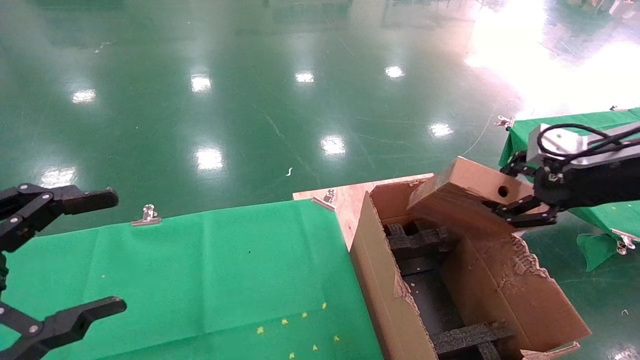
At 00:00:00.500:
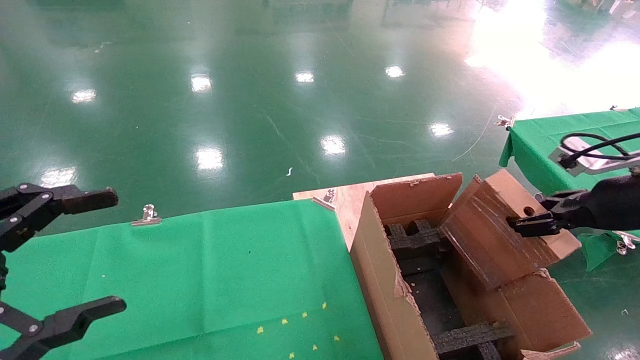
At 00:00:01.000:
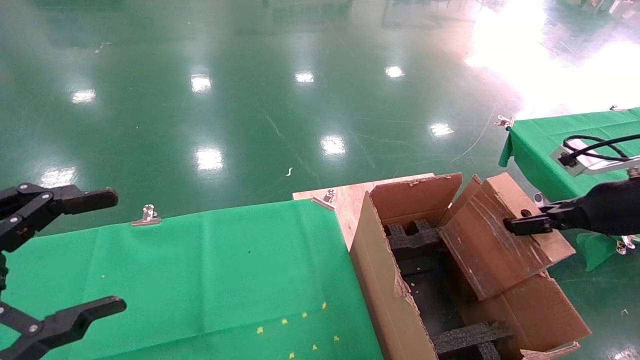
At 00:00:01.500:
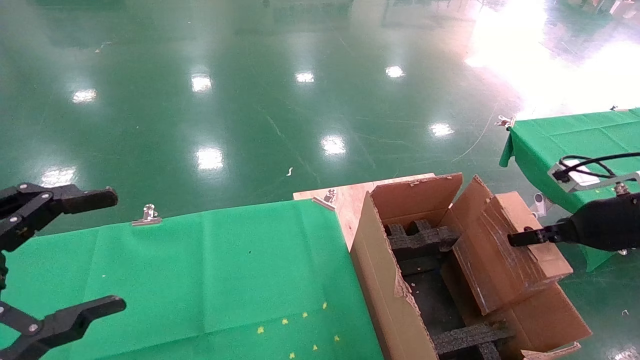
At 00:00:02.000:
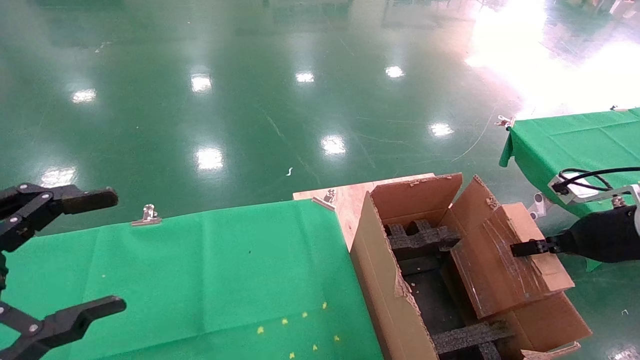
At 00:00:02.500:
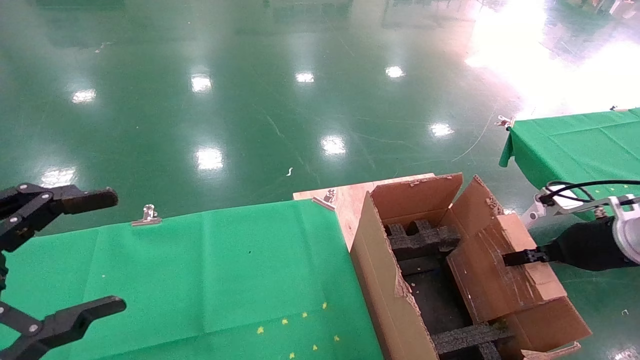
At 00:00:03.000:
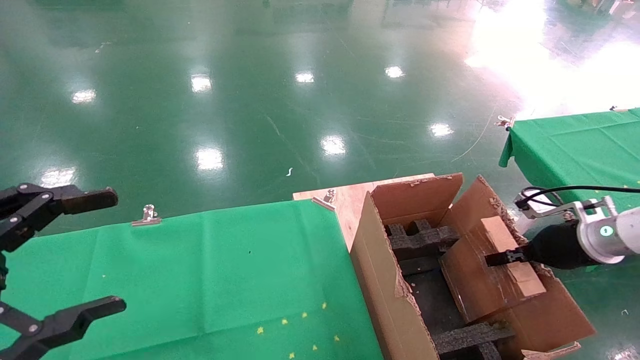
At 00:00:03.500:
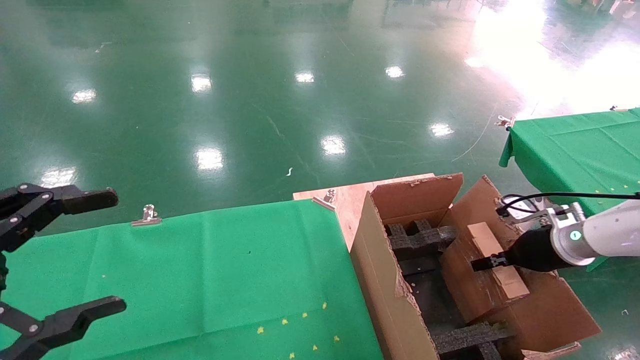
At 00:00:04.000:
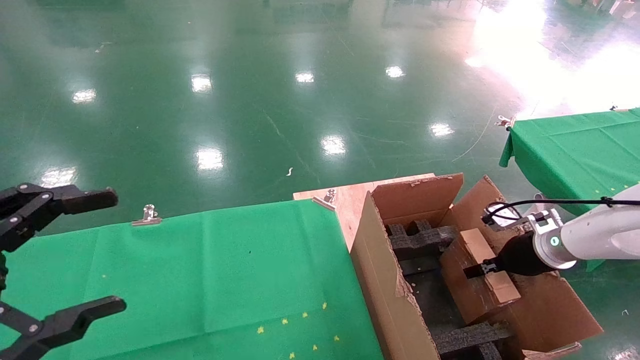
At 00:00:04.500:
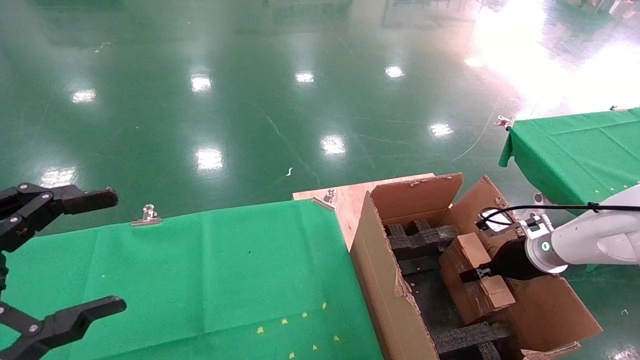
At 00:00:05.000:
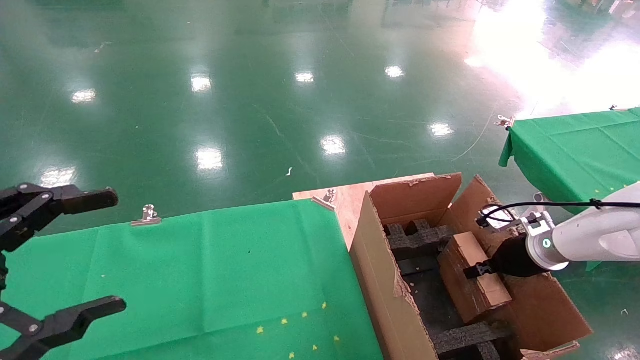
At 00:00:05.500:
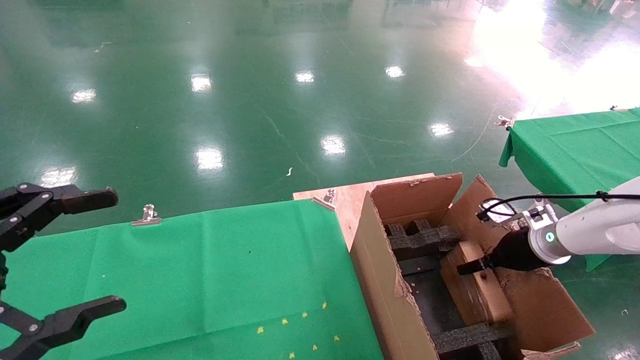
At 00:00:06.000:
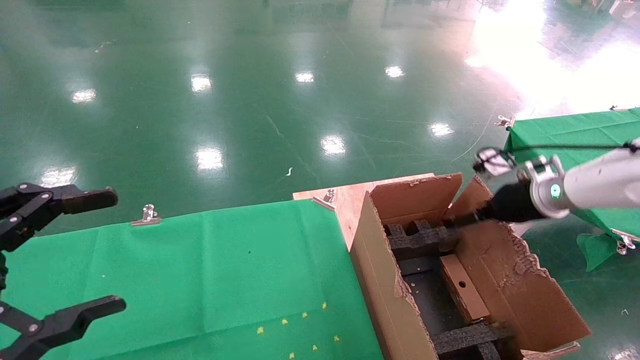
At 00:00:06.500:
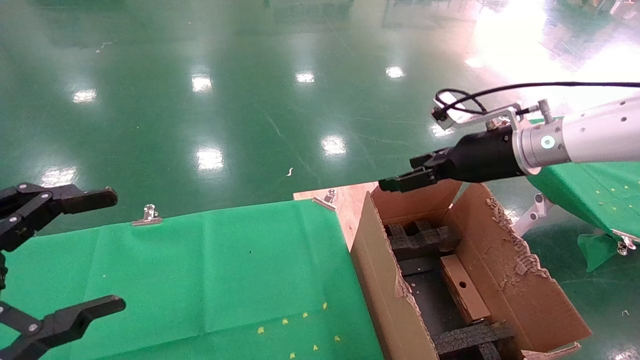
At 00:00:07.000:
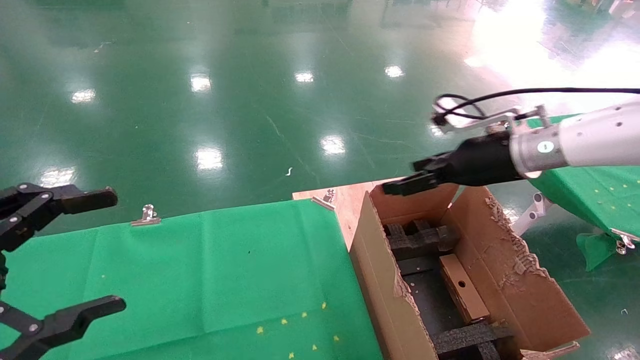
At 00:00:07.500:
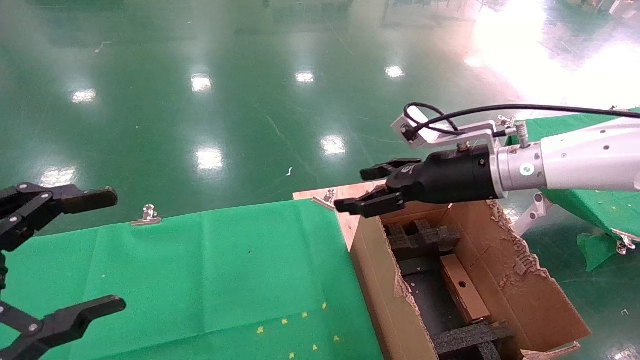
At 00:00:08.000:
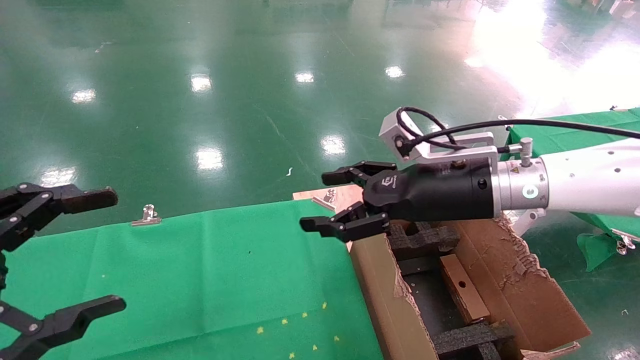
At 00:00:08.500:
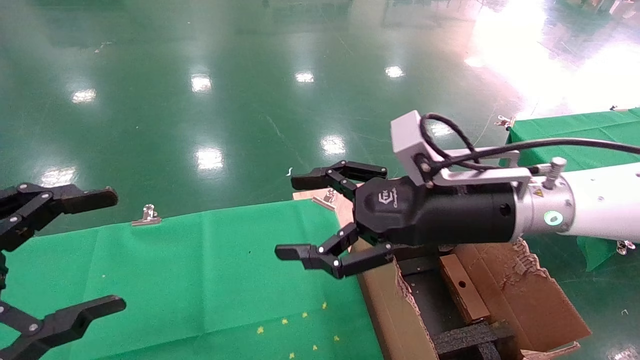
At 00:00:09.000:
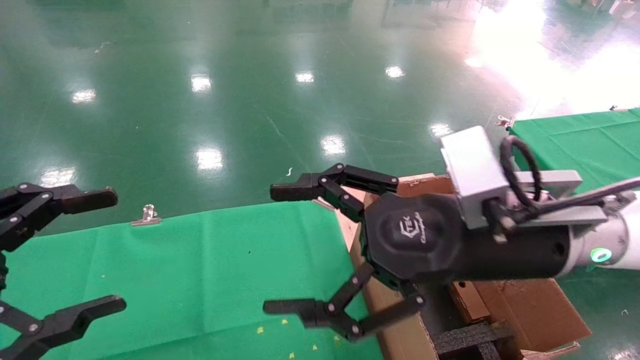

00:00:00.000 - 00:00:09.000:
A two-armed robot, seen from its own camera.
Task of the whole recording: using a robotic arm to pick up a cardboard box and palace it the carton.
Step, 00:00:00.000 - 00:00:05.500: Place the mouse and the power cord paper box into the container.
00:00:00.000 - 00:00:02.000: The right gripper heads downward, covering roughly 10 cm.
00:00:02.000 - 00:00:04.500: The right gripper moves forward and downward, some 15 cm.
00:00:04.500 - 00:00:07.000: The right gripper shifts some 25 cm upward and to the left, and opens up.
00:00:07.000 - 00:00:09.000: The right gripper is displaced backward and to the left by some 20 cm.

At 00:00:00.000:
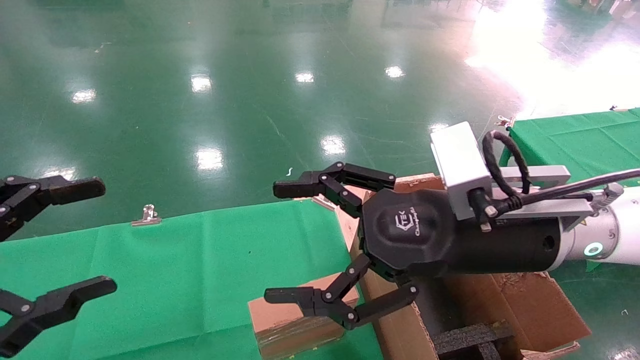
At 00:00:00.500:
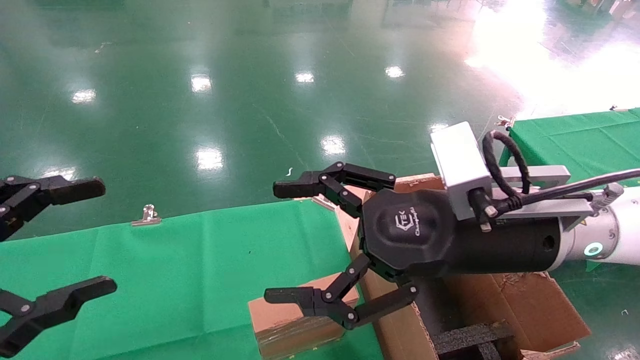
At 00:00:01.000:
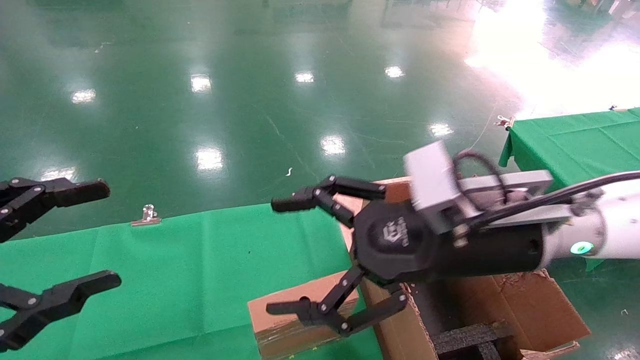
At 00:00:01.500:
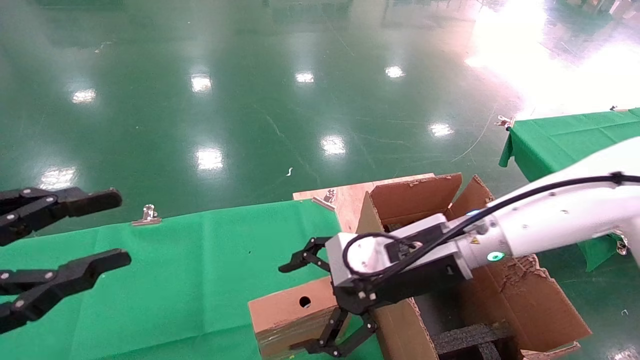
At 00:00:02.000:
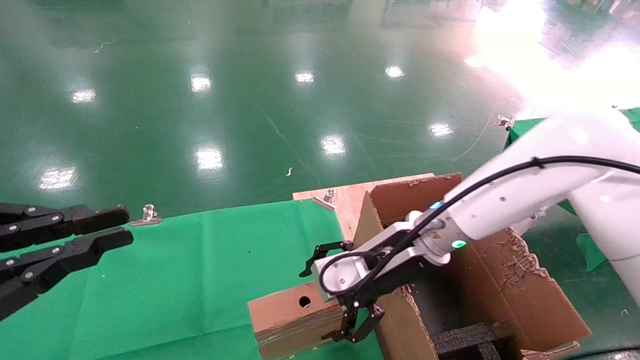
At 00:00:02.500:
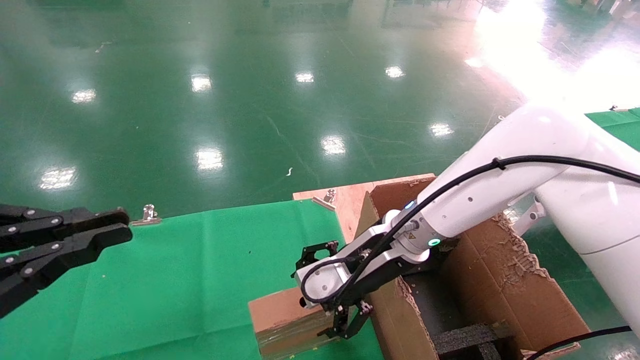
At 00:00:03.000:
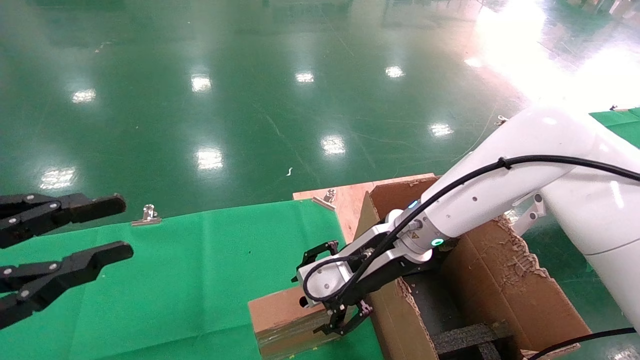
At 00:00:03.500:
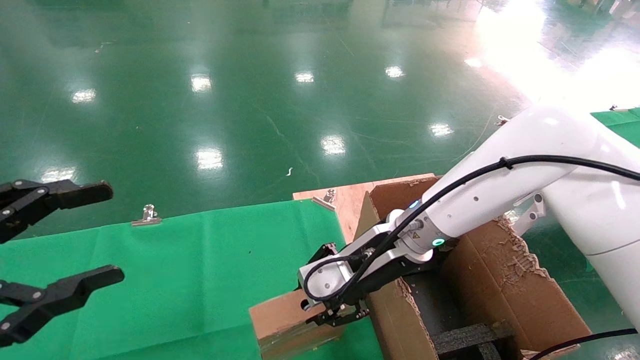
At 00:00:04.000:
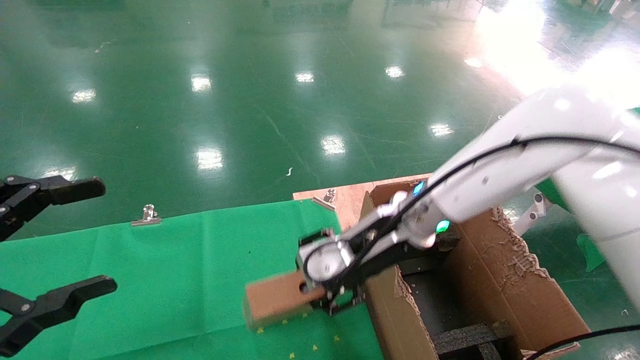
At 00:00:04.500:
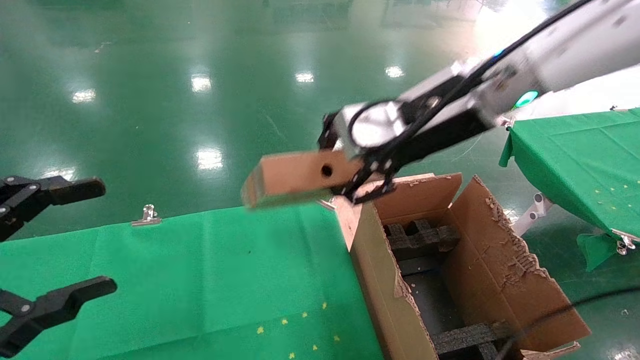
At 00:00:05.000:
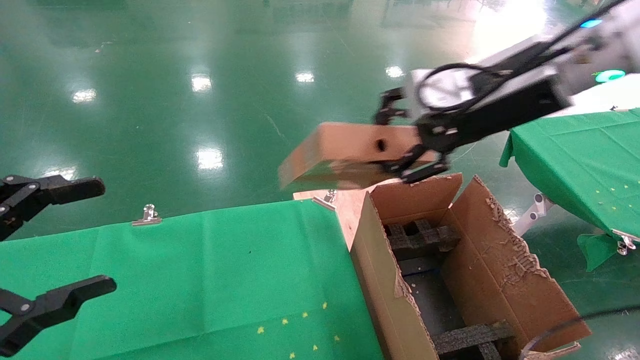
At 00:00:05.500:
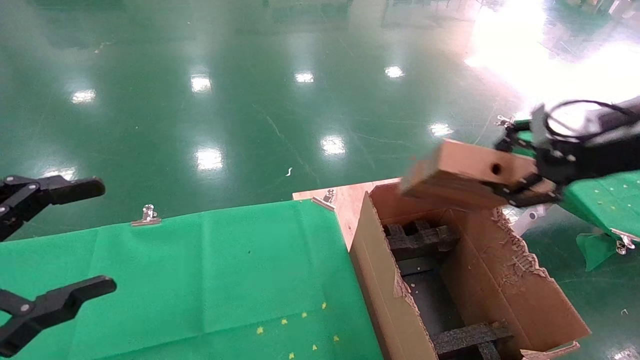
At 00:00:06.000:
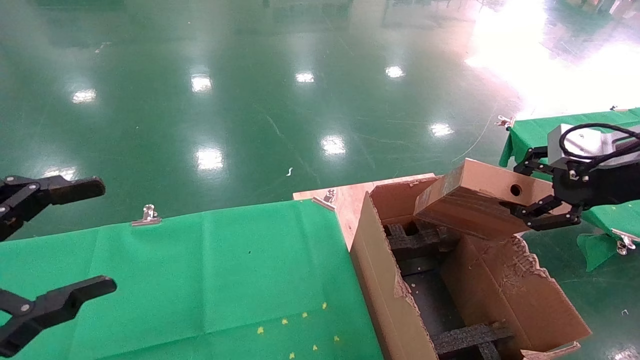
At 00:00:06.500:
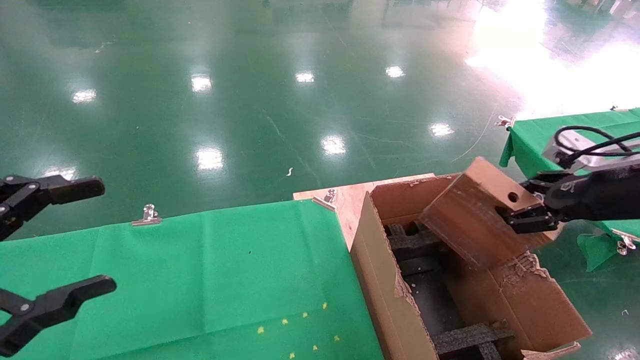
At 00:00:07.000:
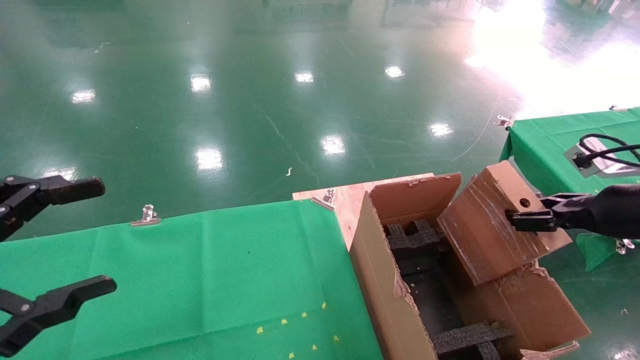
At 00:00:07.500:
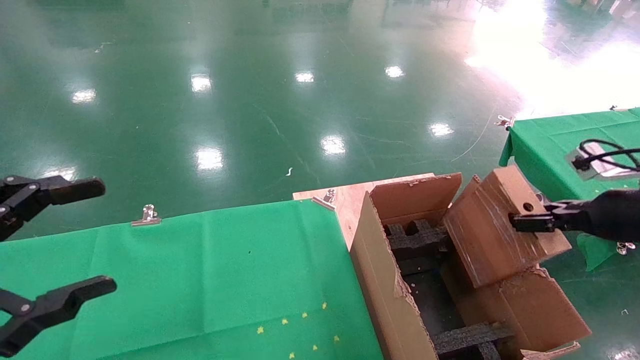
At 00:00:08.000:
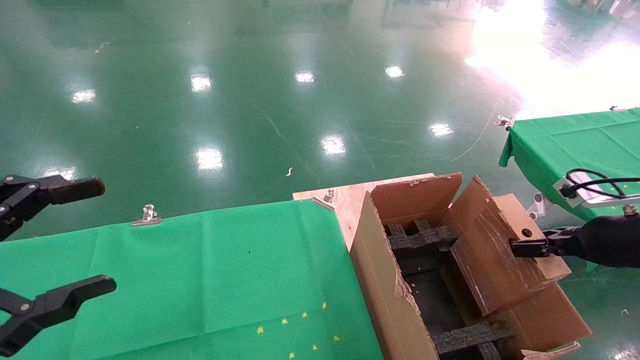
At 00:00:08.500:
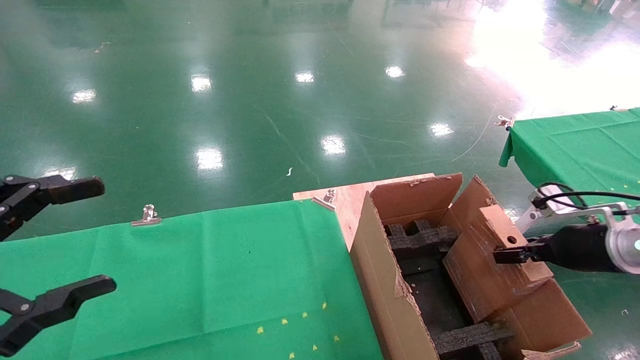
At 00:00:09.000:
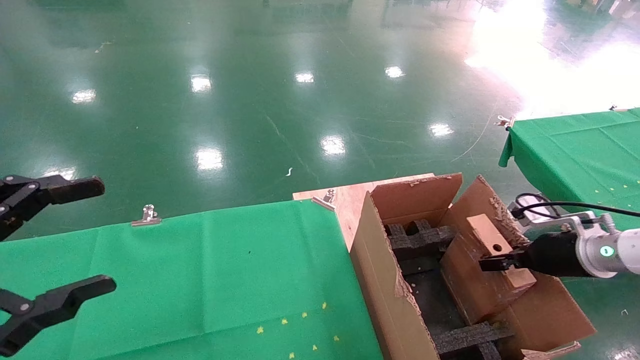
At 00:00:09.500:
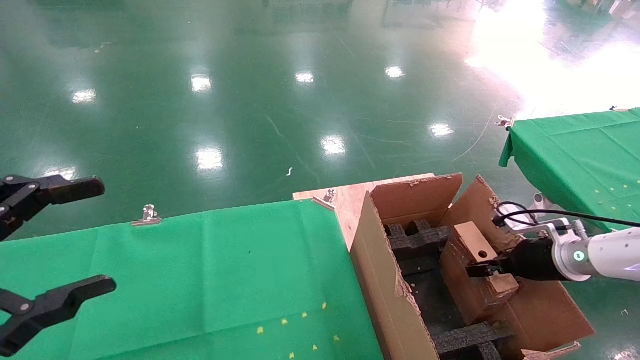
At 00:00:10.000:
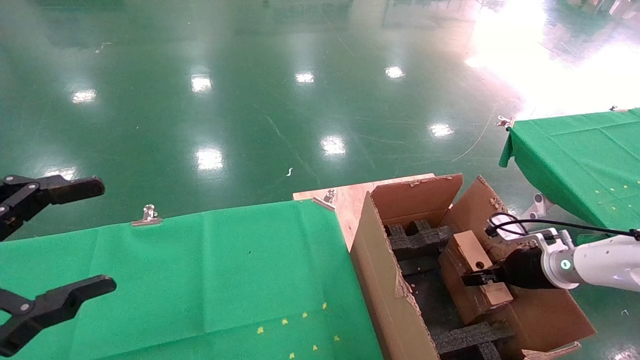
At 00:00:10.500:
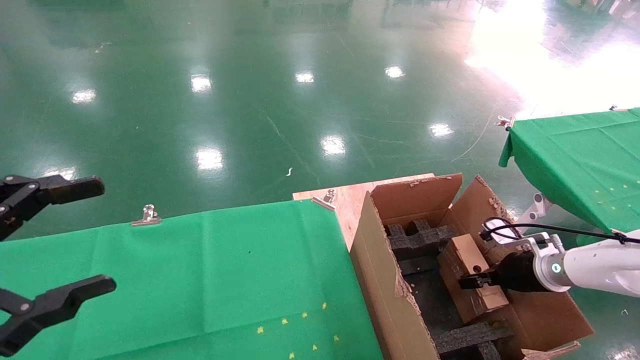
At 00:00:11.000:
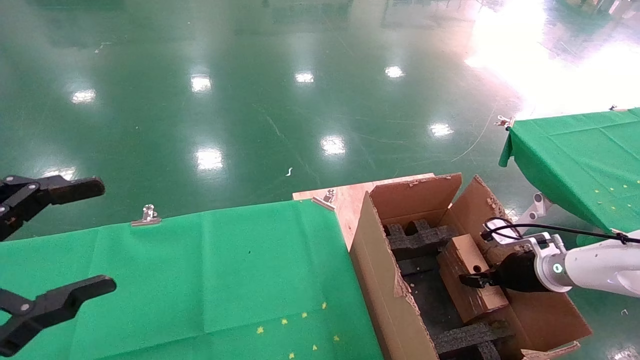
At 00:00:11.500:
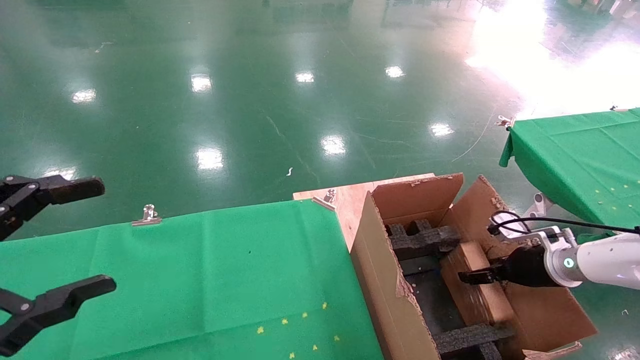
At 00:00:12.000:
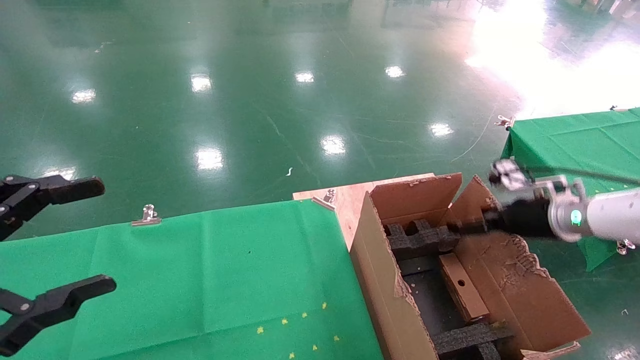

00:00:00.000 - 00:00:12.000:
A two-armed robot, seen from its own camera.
Task of the whole recording: using a robotic arm to pick up a cardboard box and palace it the carton.
Step, 00:00:01.500 - 00:00:03.500: Pick up the mouse and the power cord paper box.
00:00:00.000 - 00:00:02.000: The right gripper shifts roughly 15 cm forward and downward, while the left gripper closes up.
00:00:02.000 - 00:00:04.000: The right gripper closes up. Meanwhile the left gripper opens.
00:00:04.000 - 00:00:06.000: The right gripper moves to the right, approximately 30 cm.
00:00:06.000 - 00:00:08.000: The right gripper heads downward, covering some 15 cm.
00:00:08.000 - 00:00:10.000: The right gripper goes some 15 cm downward and forward.
00:00:10.000 - 00:00:12.000: The right gripper is displaced upward by about 10 cm, and opens up.
